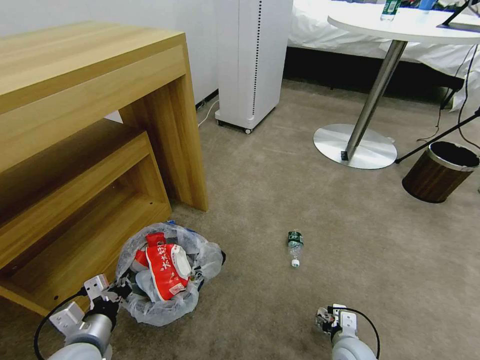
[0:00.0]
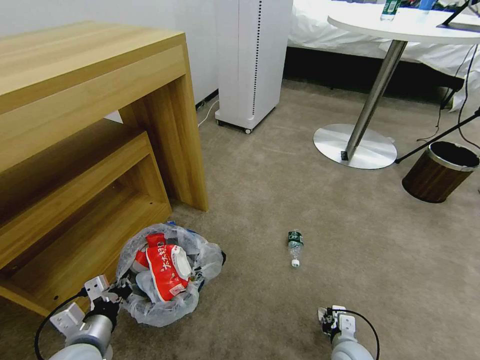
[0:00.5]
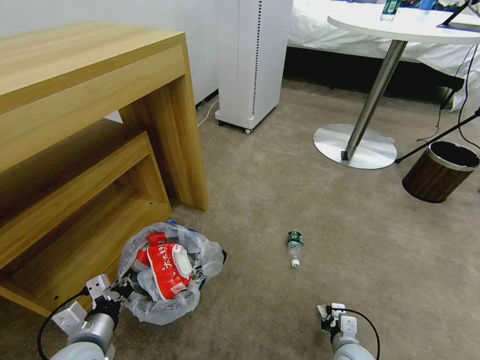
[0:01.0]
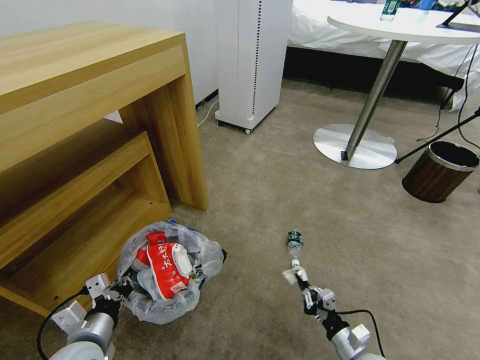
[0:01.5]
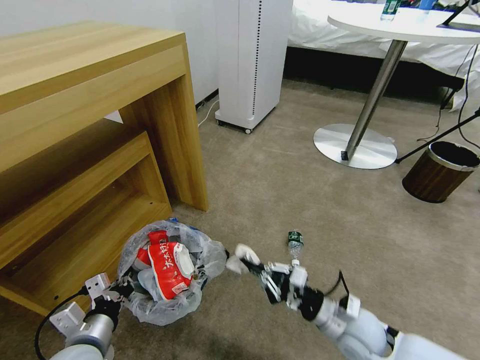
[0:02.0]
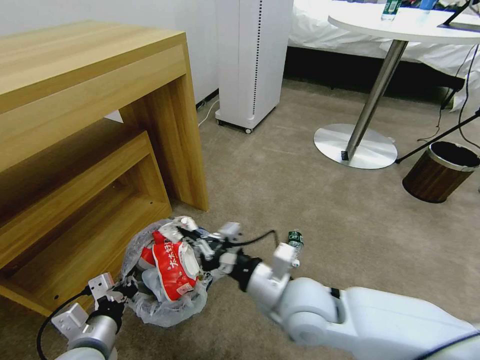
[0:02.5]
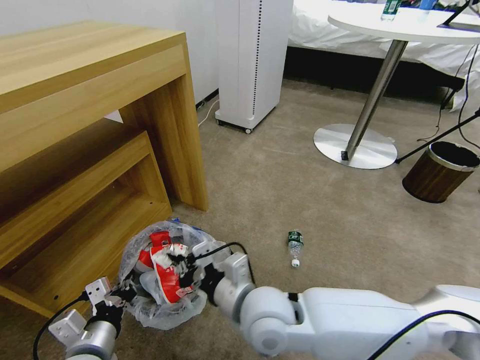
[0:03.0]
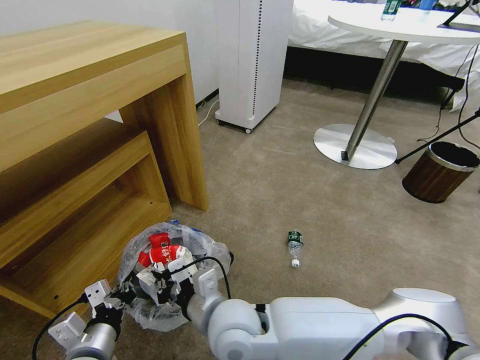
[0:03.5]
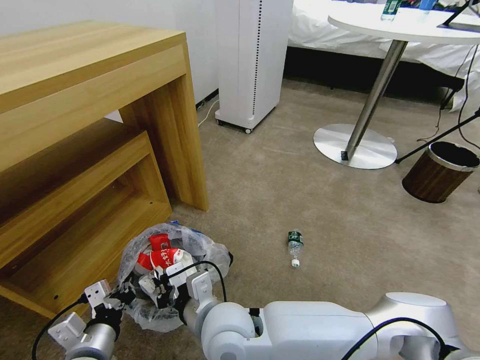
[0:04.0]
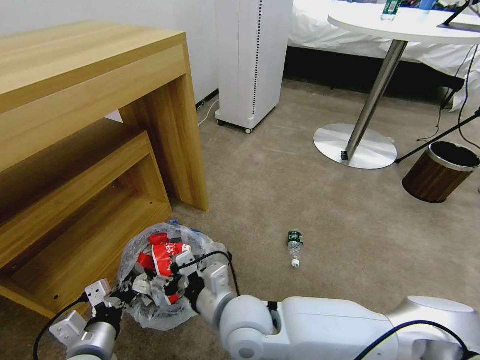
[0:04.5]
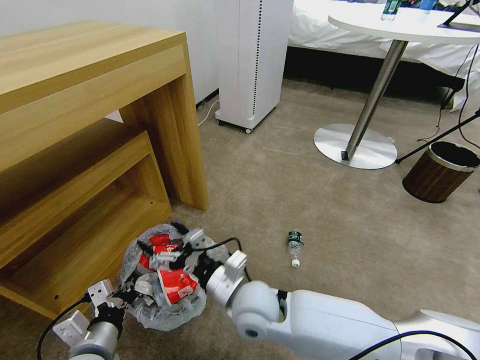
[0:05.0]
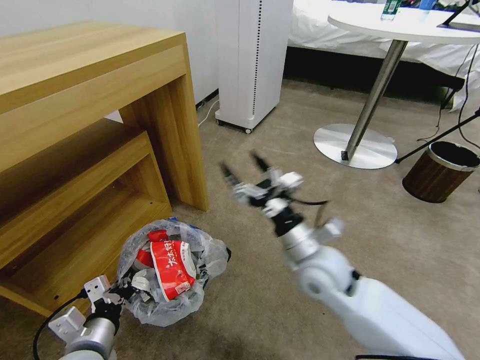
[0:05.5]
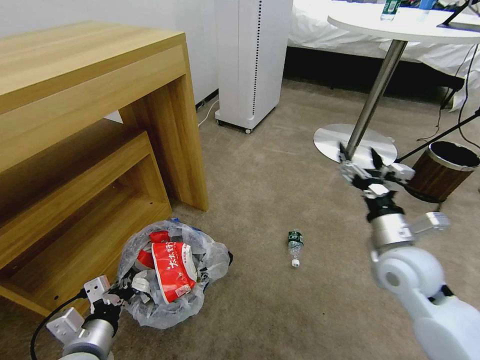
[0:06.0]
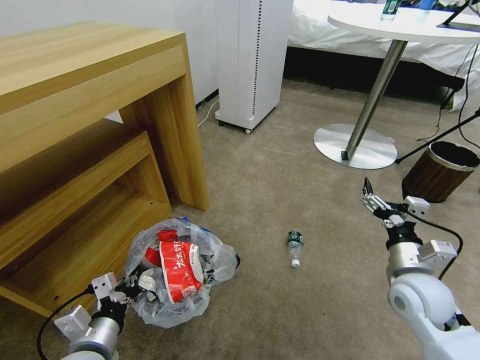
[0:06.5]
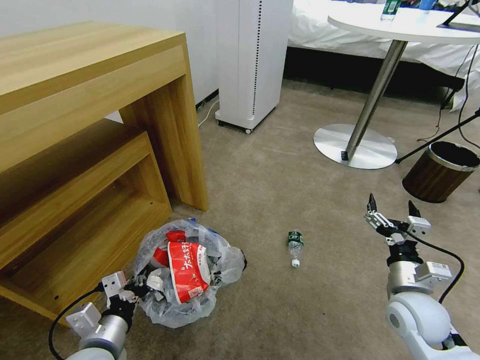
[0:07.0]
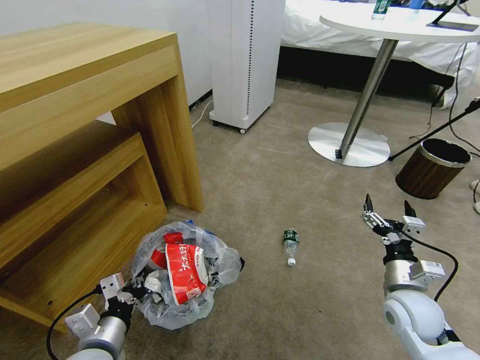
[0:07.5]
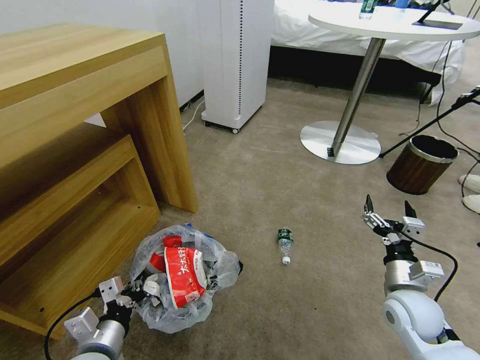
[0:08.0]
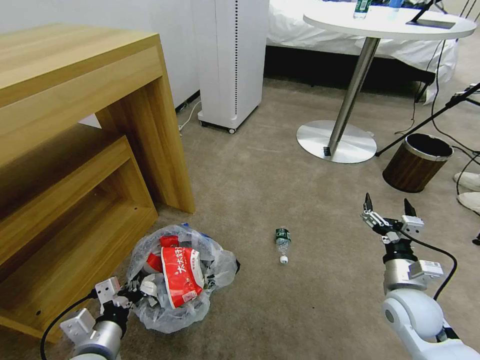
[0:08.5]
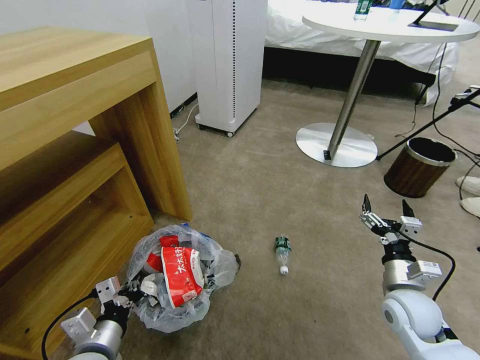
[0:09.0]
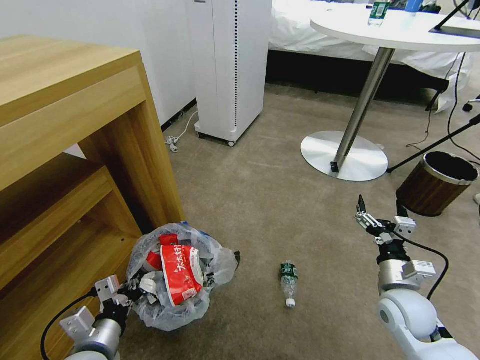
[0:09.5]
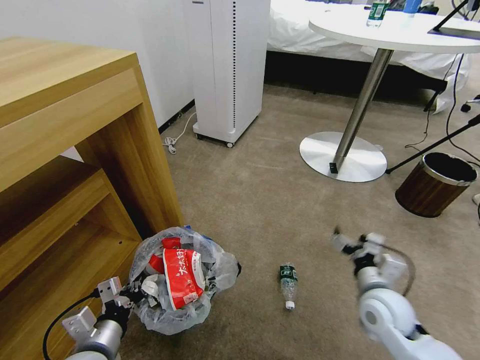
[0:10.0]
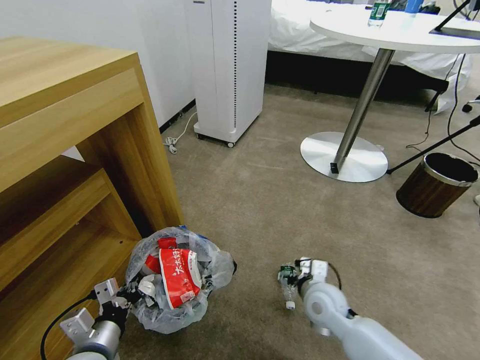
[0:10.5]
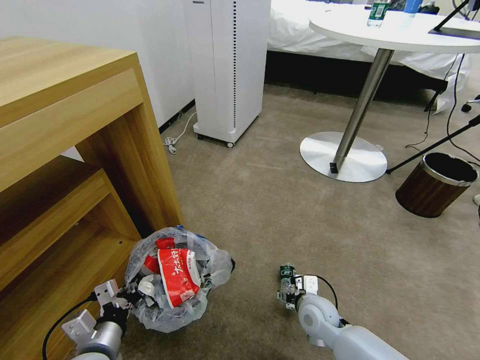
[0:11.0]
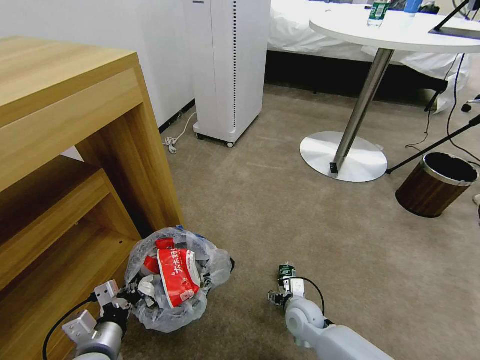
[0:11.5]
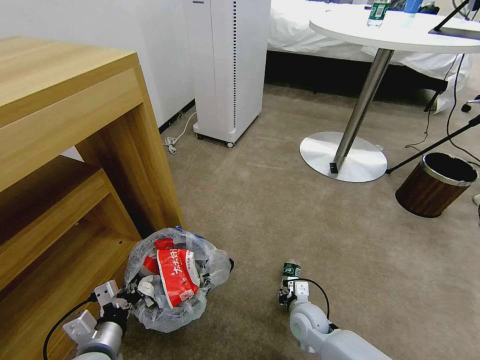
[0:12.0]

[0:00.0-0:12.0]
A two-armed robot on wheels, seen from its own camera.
Task of the whole recording: Pick up the trash bin and place the garbage on the floor into it.
0.0 to 2.0 s: The right gripper travels upward by roughly 10 cm, and closes.
2.0 to 4.0 s: The right gripper is displaced to the left by approximately 25 cm.
4.0 to 6.0 s: The right gripper moves to the right, roughly 35 cm, and opens up.
6.0 to 8.0 s: The right gripper shifts roughly 15 cm downward and to the right.
8.0 to 10.0 s: The right gripper shifts about 5 cm to the left.
10.0 to 12.0 s: The right gripper moves downward and to the left, roughly 20 cm, and closes.

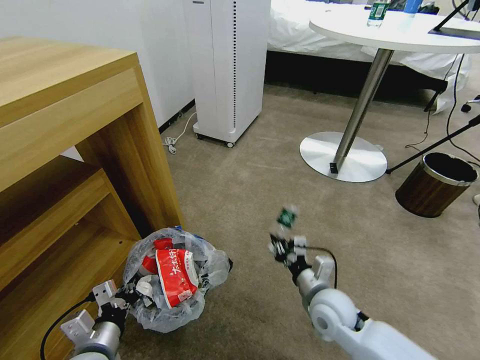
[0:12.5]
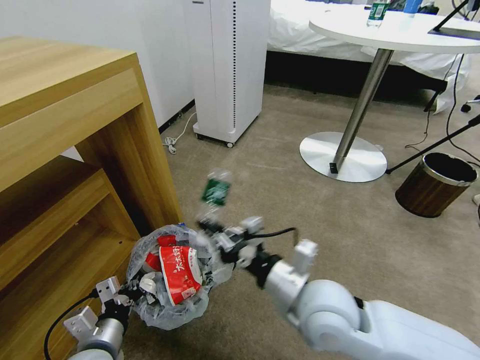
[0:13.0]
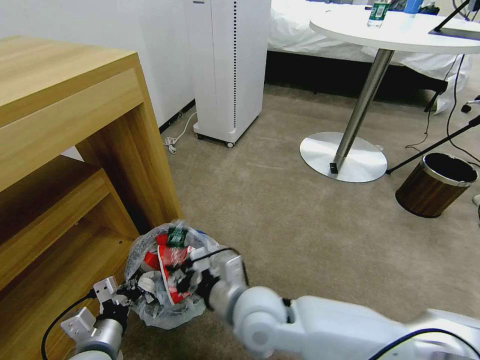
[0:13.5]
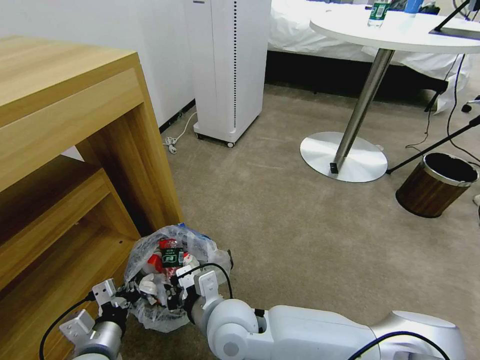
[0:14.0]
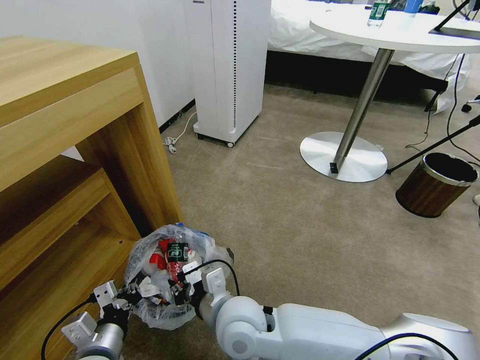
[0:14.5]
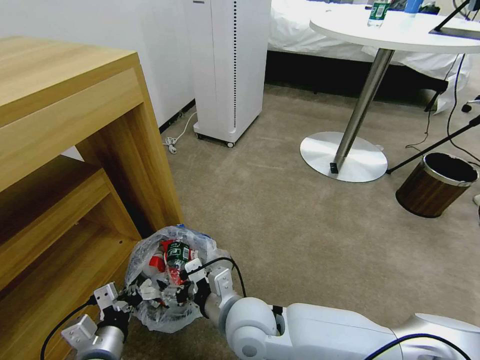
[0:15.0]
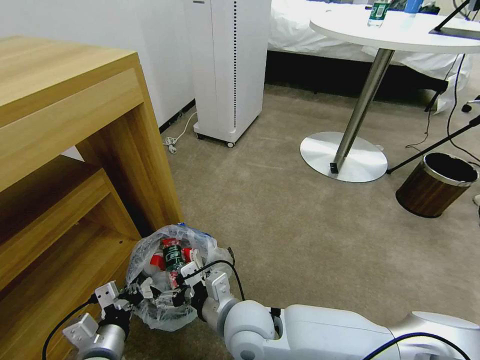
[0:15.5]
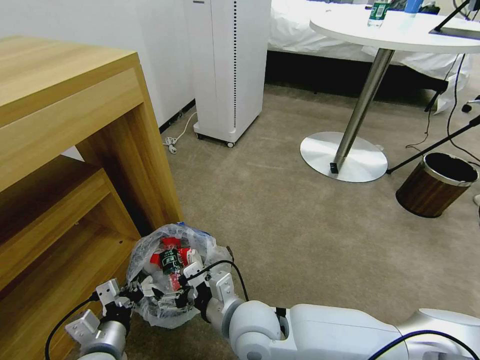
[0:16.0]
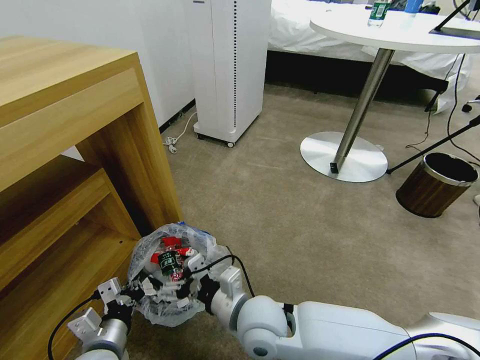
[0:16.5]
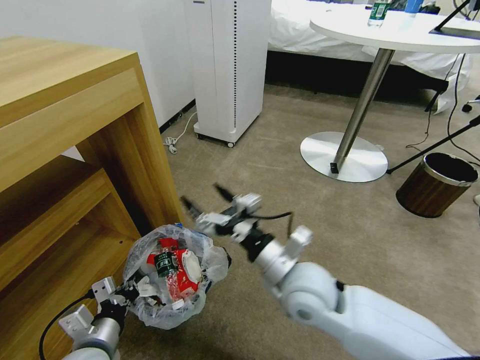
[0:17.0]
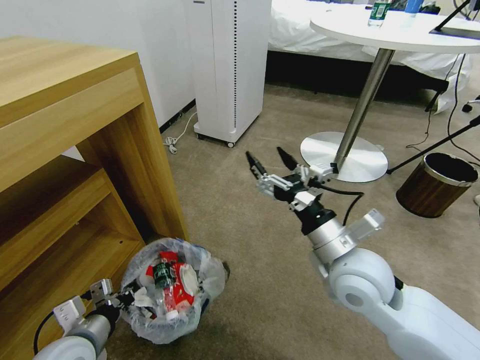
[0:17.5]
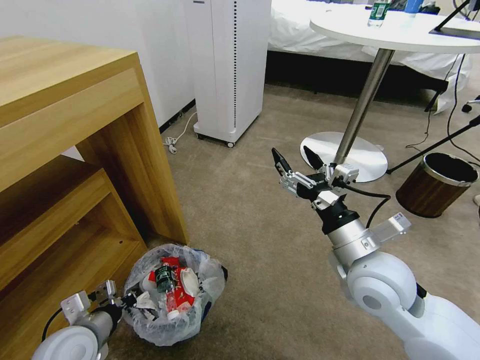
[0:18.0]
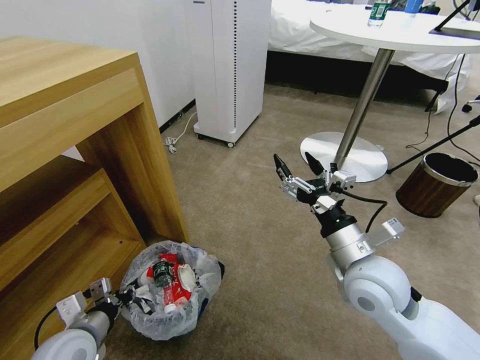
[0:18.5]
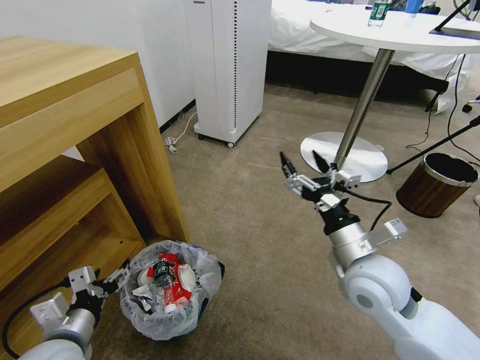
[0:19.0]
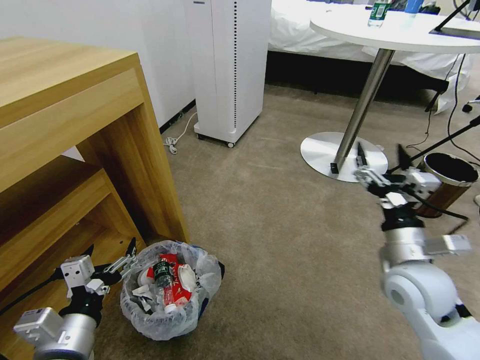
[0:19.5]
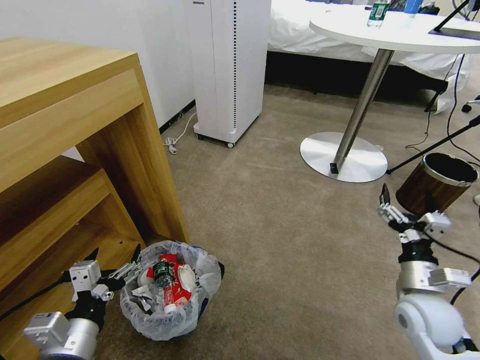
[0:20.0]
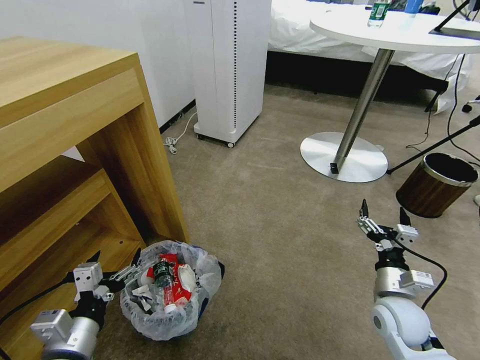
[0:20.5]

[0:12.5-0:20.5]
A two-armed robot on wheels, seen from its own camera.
Task of the whole recording: Pick up the trash bin and place the garbage on the floor into it.
12.5 to 14.5 s: The right gripper heads to the left and upward, covering some 25 cm.
14.5 to 16.5 s: The right gripper opens its fingers.
16.5 to 18.5 s: The left gripper moves to the left, about 5 cm; the right gripper heads to the right and upward, covering roughly 20 cm.
18.5 to 20.5 s: The right gripper travels downward and to the right by approximately 20 cm; the left gripper goes approximately 5 cm backward, and opens up.

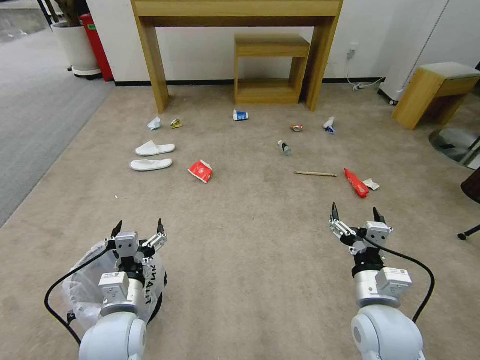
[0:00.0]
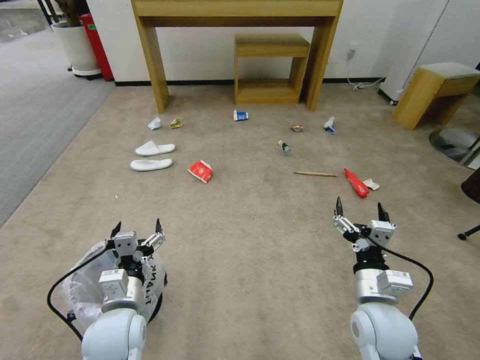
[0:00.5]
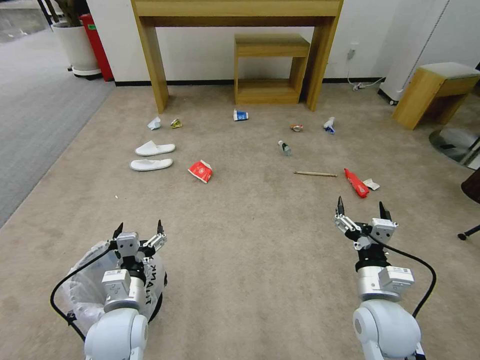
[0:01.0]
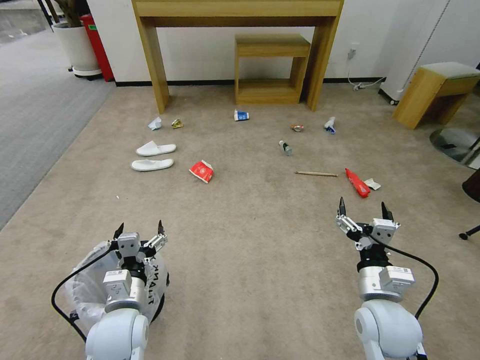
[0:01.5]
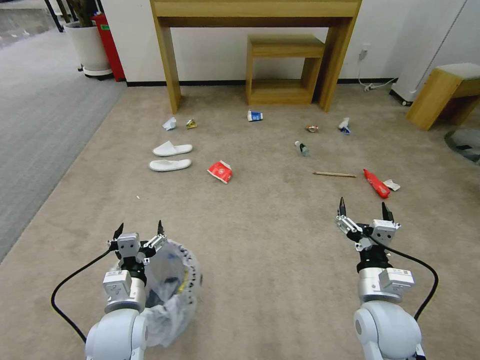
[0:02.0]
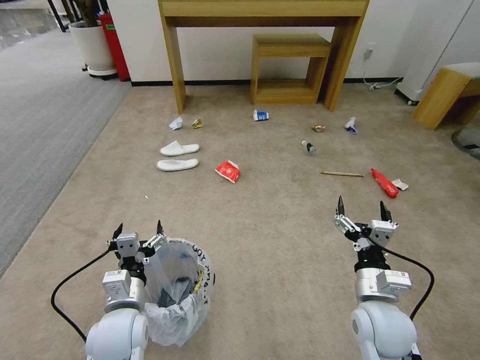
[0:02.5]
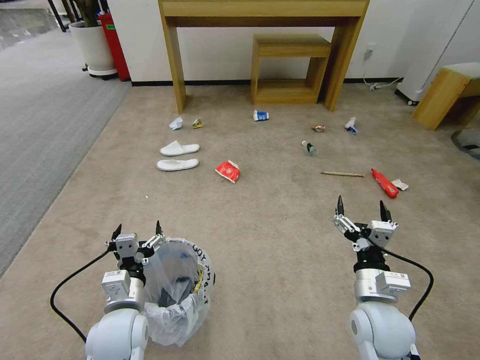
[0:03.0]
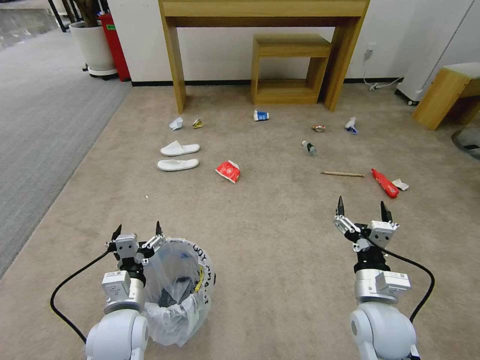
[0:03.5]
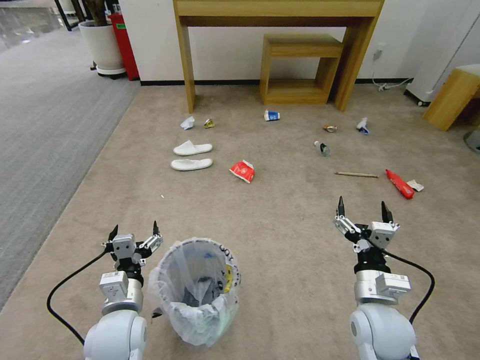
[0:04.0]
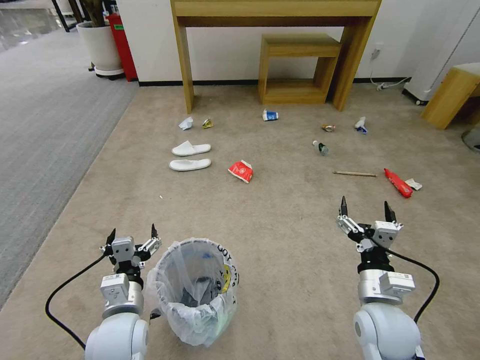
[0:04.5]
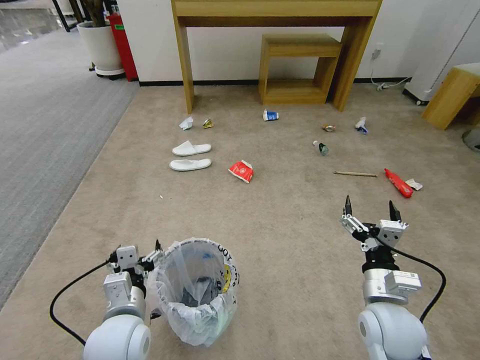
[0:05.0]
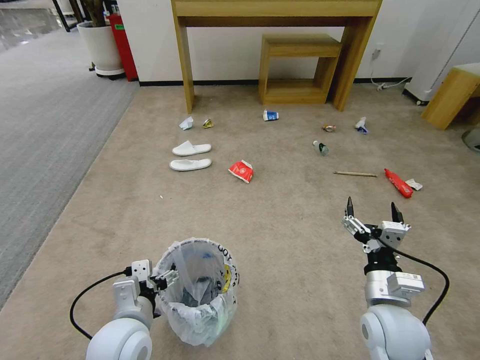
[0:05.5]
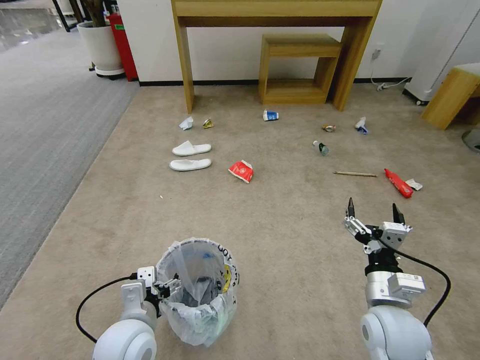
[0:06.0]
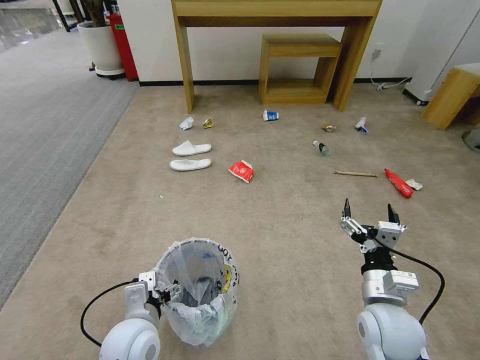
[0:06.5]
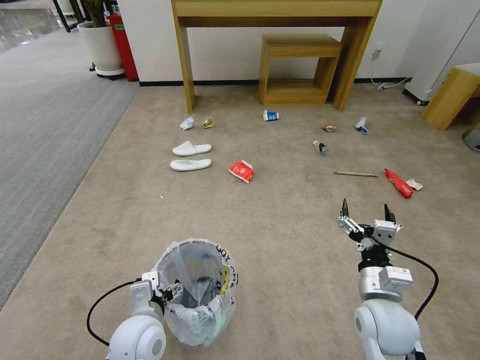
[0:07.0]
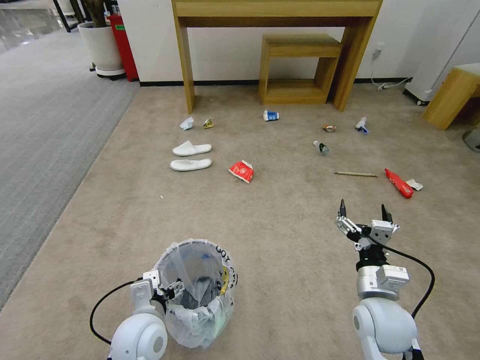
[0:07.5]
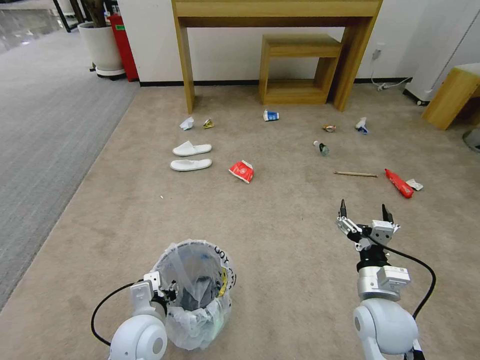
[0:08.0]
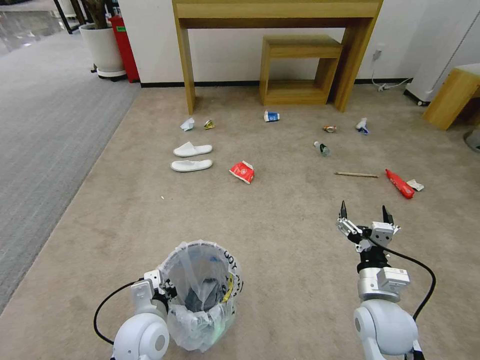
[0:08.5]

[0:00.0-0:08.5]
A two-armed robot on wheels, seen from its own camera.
Task of the whole recording: Pick up the trash bin and place the garbage on the floor into it.
2.0 to 4.0 s: Neither gripper changes place.
6.5 to 8.5 s: The left gripper closes up.
